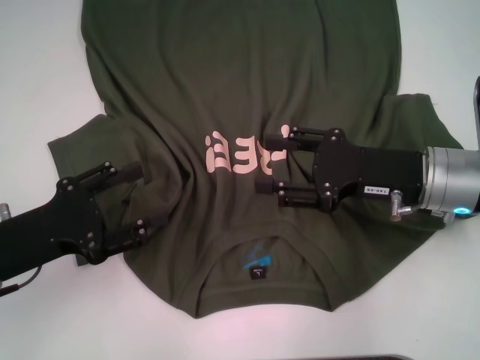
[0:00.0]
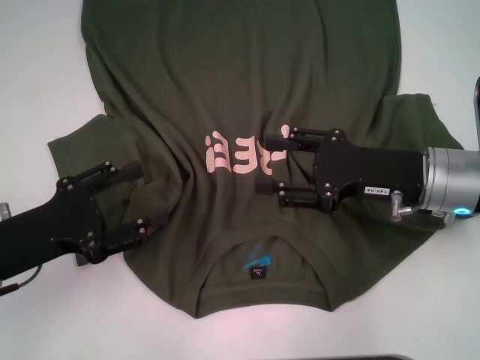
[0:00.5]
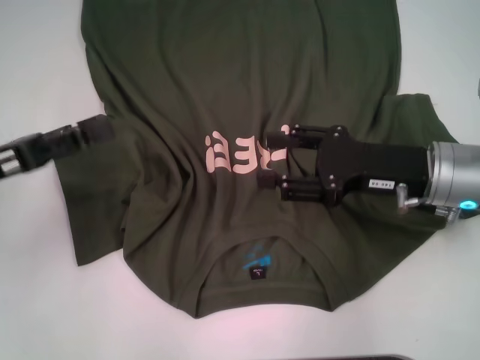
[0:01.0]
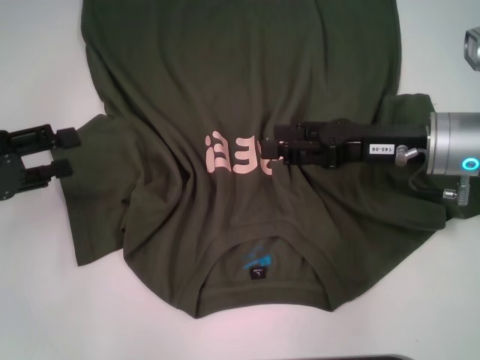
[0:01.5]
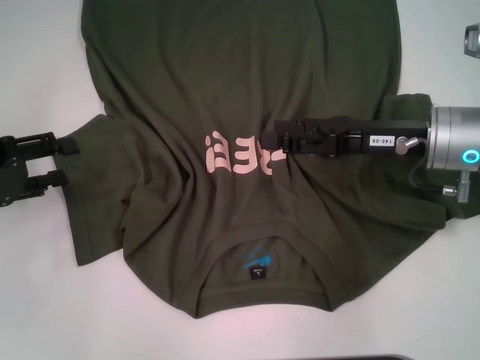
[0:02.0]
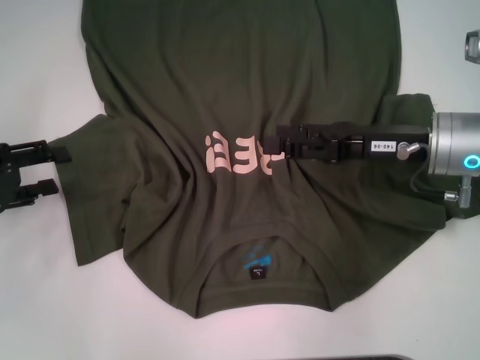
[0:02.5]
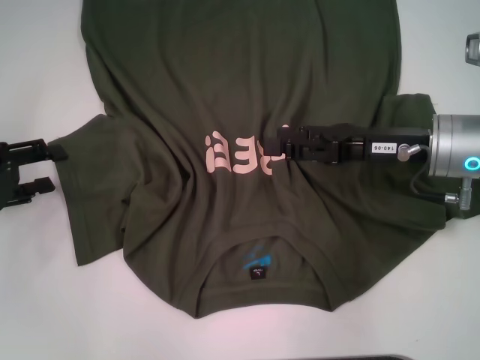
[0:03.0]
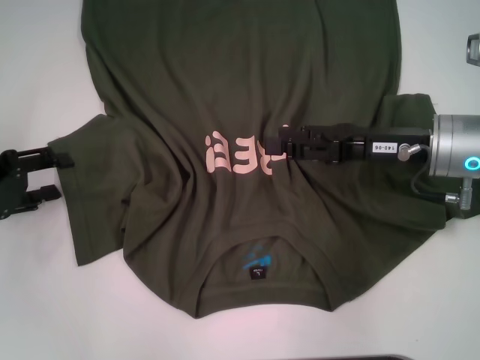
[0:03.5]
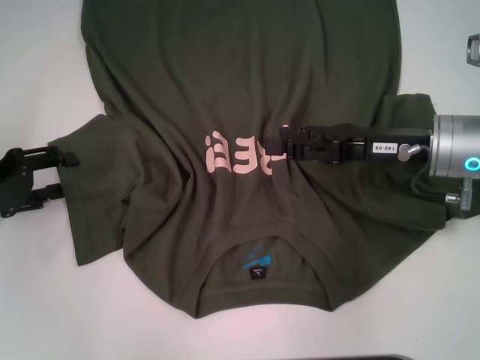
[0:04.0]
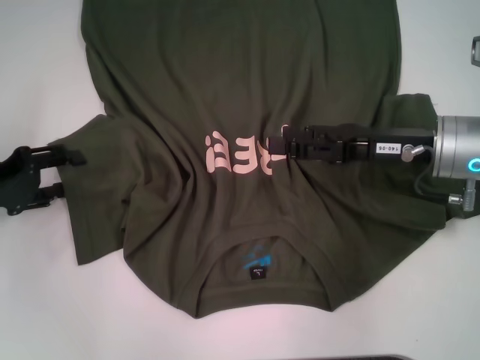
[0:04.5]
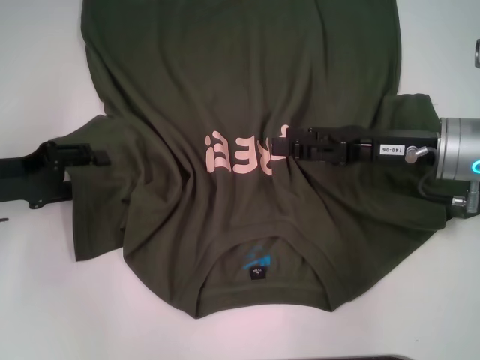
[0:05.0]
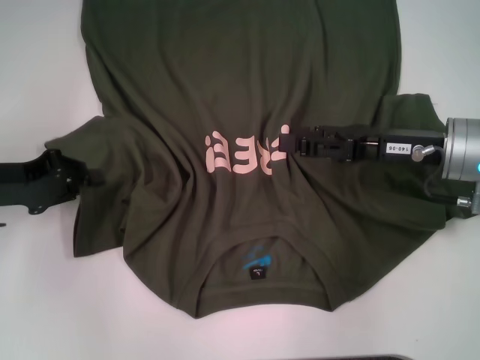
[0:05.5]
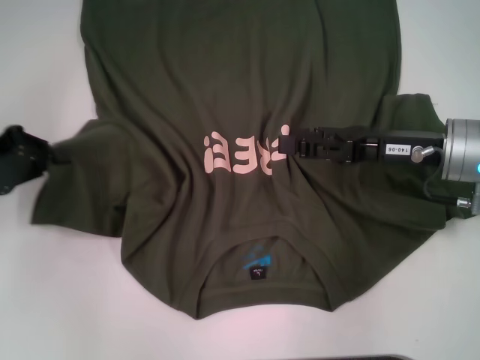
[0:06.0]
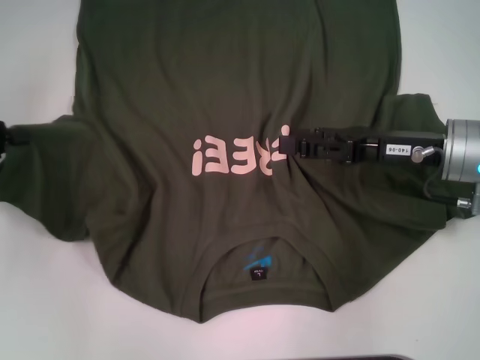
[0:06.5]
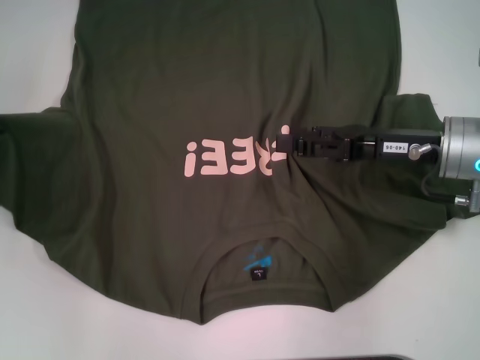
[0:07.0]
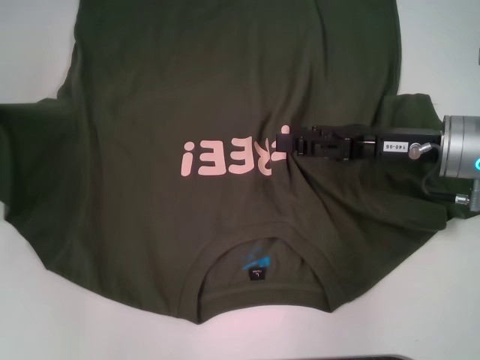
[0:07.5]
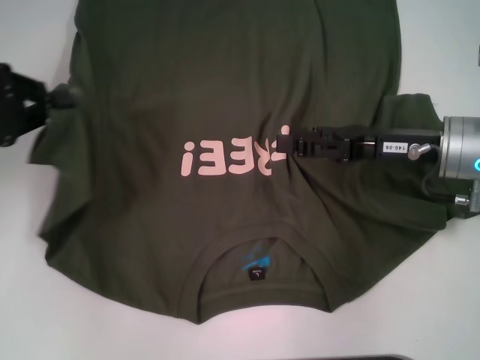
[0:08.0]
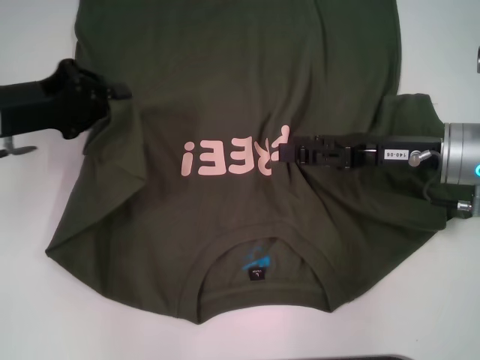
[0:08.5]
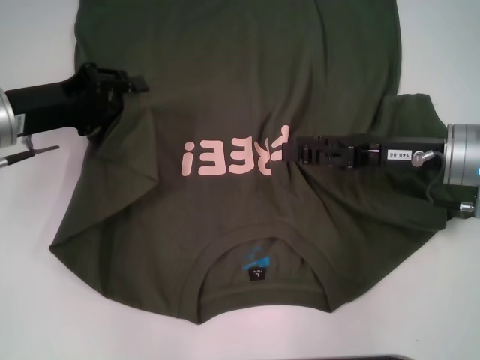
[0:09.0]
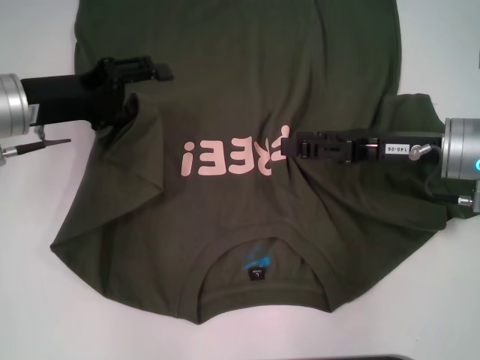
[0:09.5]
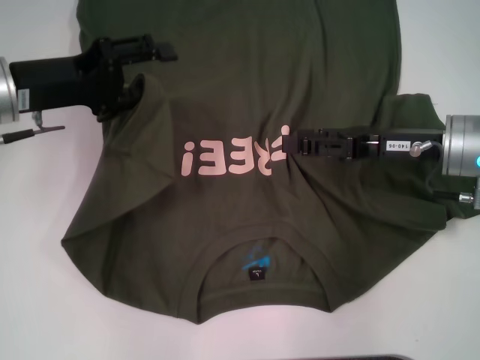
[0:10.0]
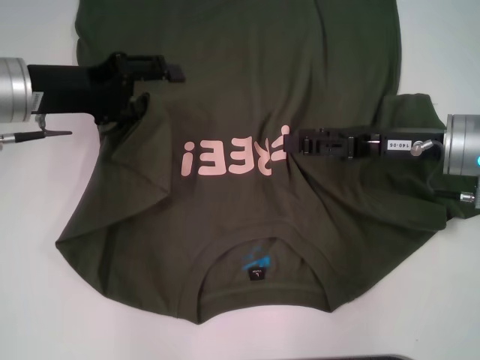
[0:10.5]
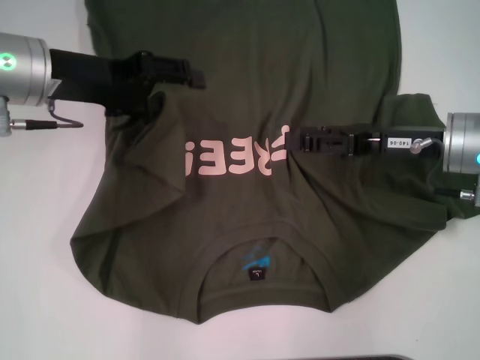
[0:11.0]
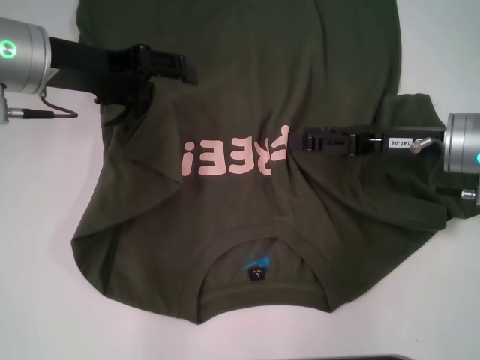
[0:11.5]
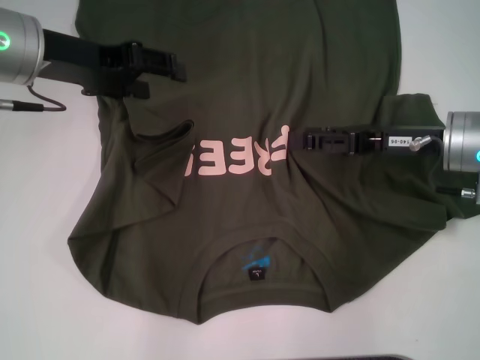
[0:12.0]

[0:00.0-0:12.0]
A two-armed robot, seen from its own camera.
0:00.0 to 0:02.0: The left gripper heads to the left and forward, covering about 10 cm.
0:02.0 to 0:04.0: The grippers move only a little.
0:04.0 to 0:06.0: The left gripper closes its fingers.
0:08.0 to 0:10.0: The left gripper travels to the right by about 10 cm, and opens its fingers.
0:10.0 to 0:12.0: The left gripper moves upward, approximately 5 cm.

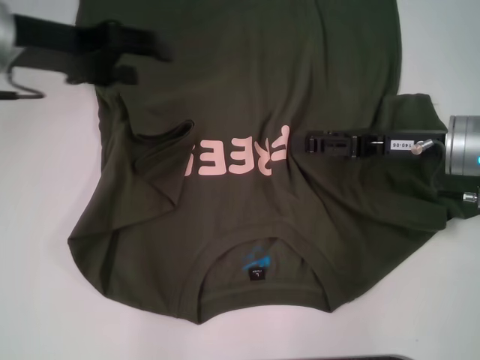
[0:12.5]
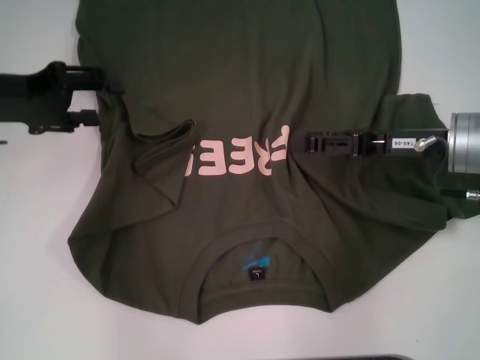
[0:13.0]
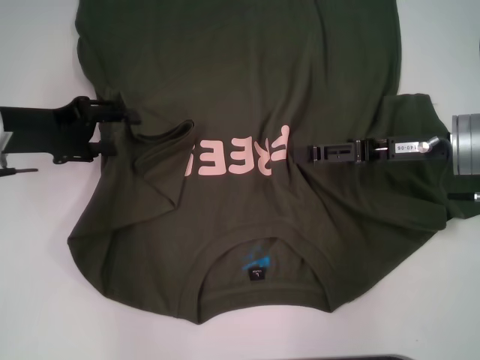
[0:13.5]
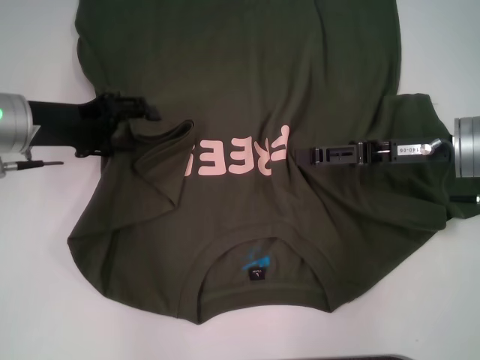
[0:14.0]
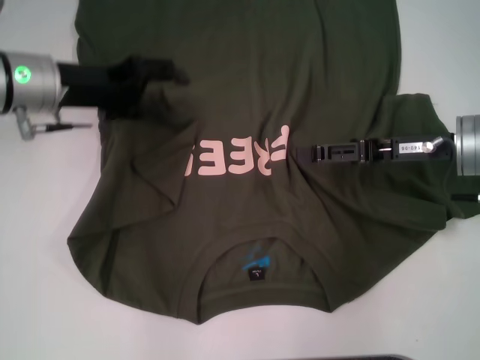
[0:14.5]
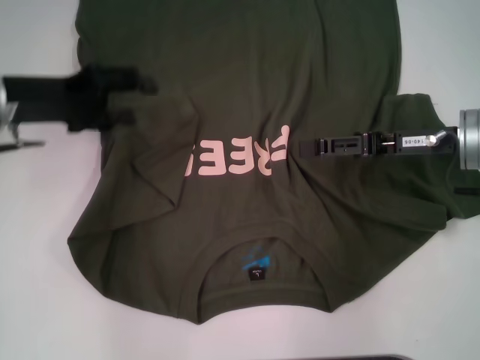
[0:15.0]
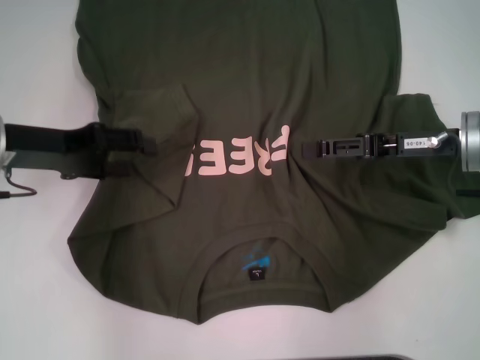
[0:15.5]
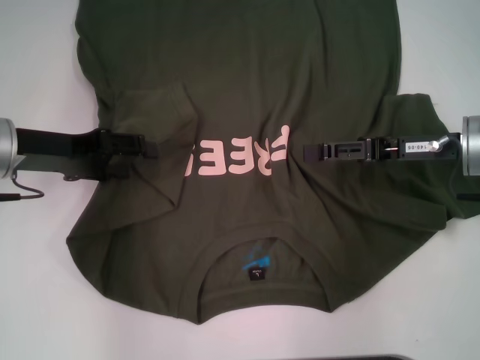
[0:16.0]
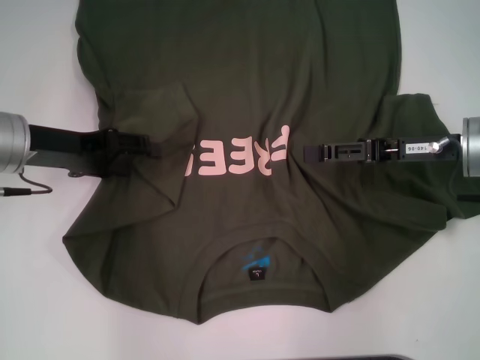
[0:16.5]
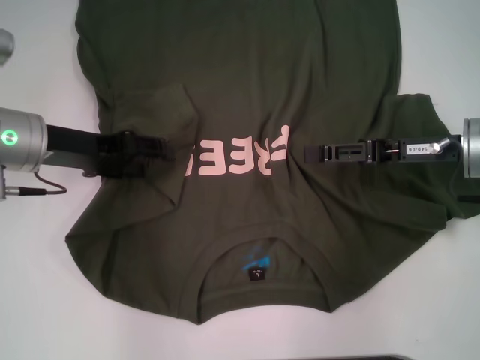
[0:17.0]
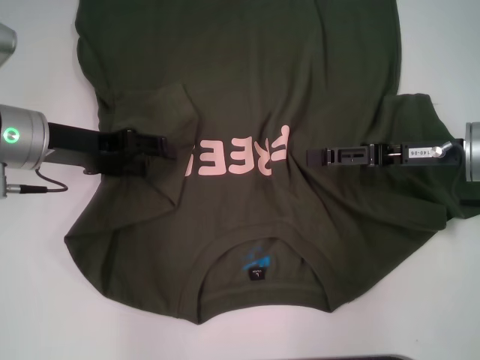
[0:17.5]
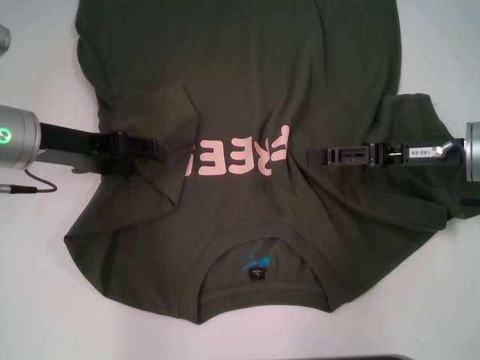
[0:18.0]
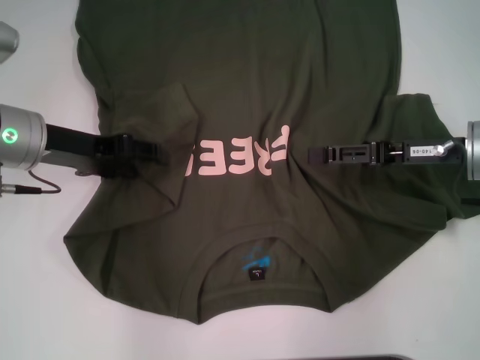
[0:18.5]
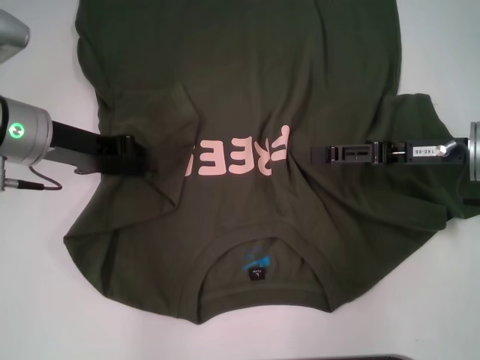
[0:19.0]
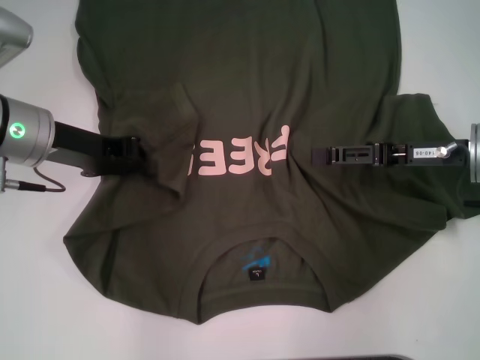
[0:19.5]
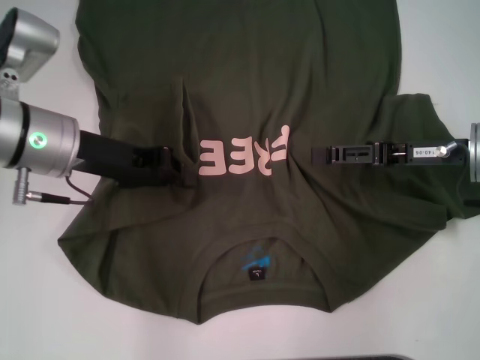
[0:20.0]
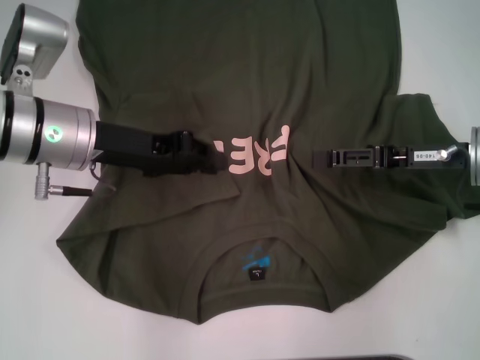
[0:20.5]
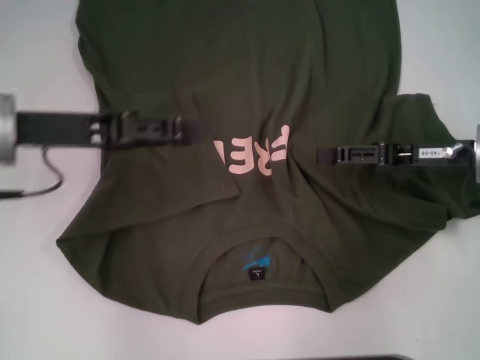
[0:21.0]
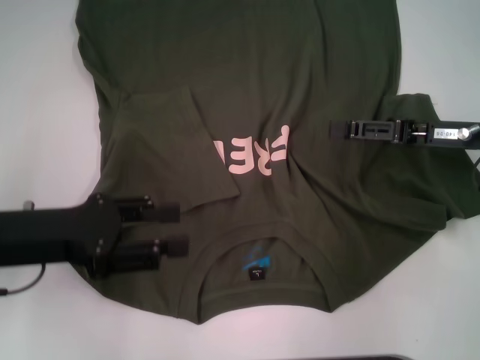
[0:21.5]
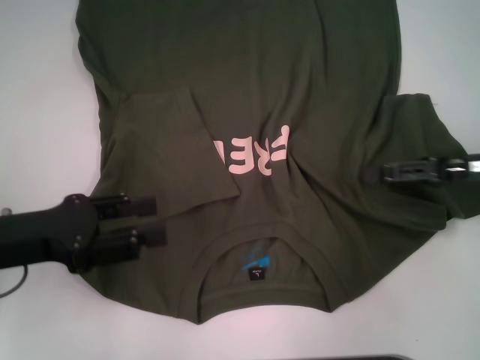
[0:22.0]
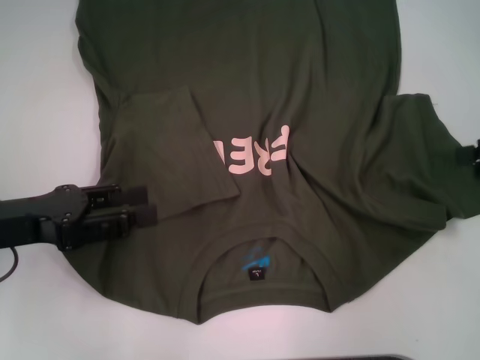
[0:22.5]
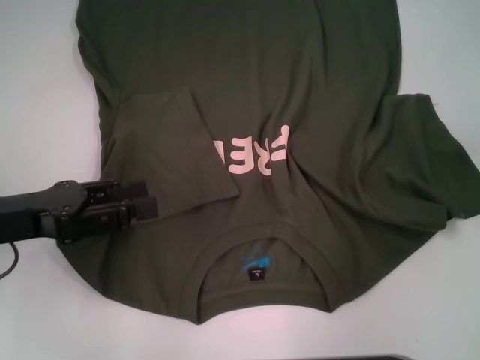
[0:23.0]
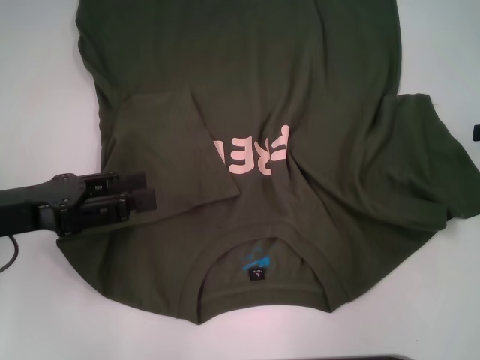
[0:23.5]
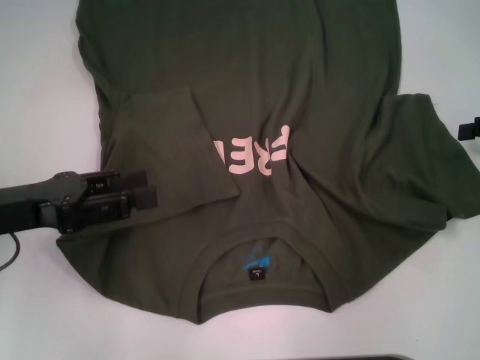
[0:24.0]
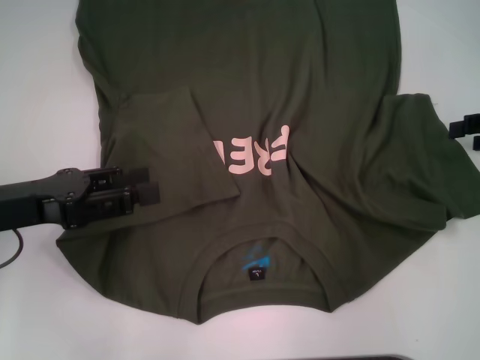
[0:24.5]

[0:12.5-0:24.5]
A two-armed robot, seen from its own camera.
Step, 0:12.5 to 0:22.5: Fold the bottom left sleeve with your left hand.
0:12.5 to 0:14.5: The left gripper shifts approximately 5 cm downward.
0:14.5 to 0:16.5: The left gripper moves about 5 cm.
0:16.5 to 0:18.5: The grippers make only small movements.
0:18.5 to 0:20.5: The left gripper closes.
0:20.5 to 0:22.5: The left gripper goes about 15 cm to the left and backward, and opens. Meanwhile the right gripper moves to the right and upward, some 15 cm.
0:22.5 to 0:24.5: The grippers move only a little.

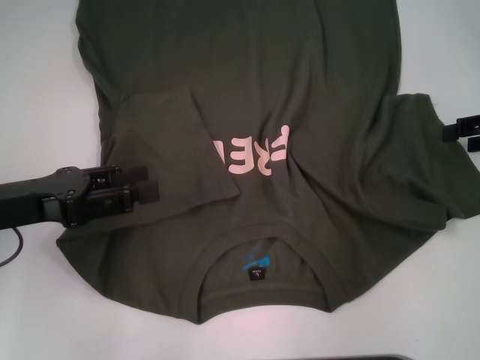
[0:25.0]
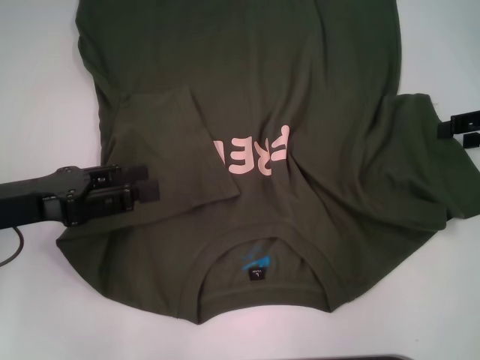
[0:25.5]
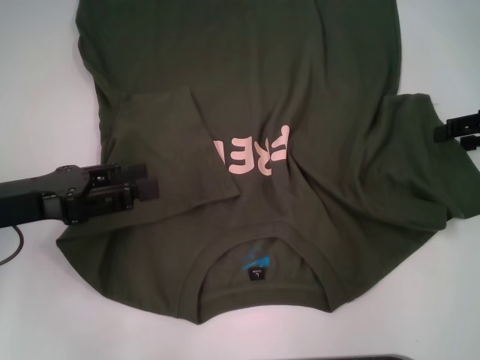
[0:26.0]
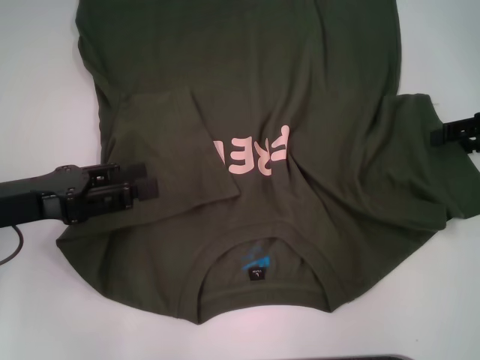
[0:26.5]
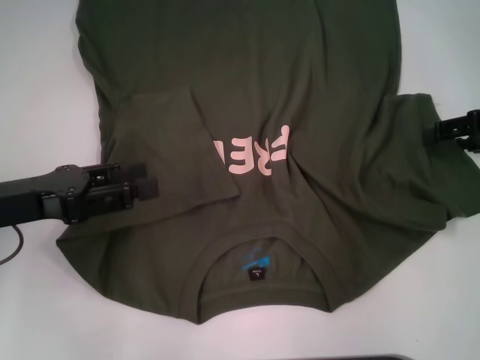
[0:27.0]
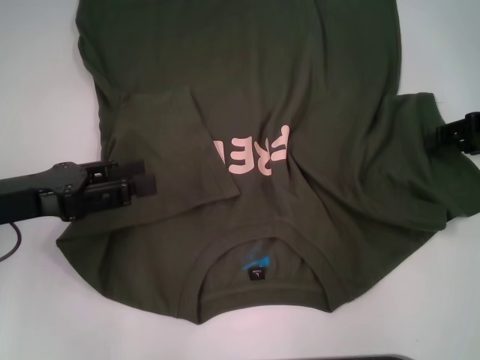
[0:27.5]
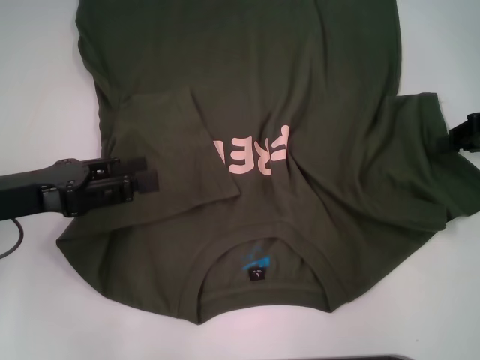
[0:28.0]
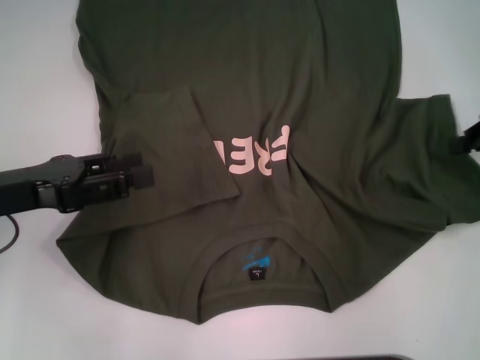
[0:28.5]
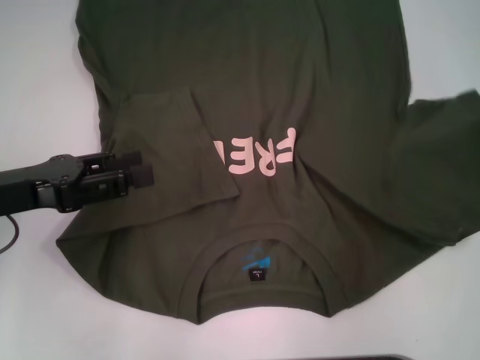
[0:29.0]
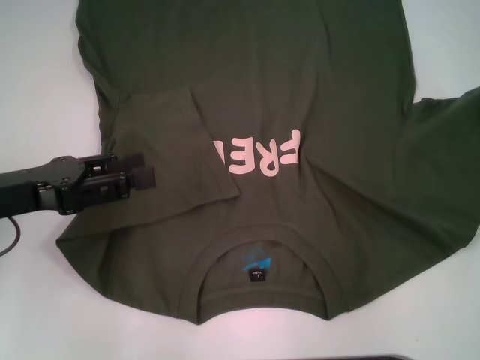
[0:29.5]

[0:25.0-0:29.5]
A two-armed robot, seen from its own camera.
0:25.0 to 0:27.0: There are only small adjustments of the grippers.
0:27.0 to 0:29.5: The right gripper heads upward, covering about 5 cm, and closes its fingers.
